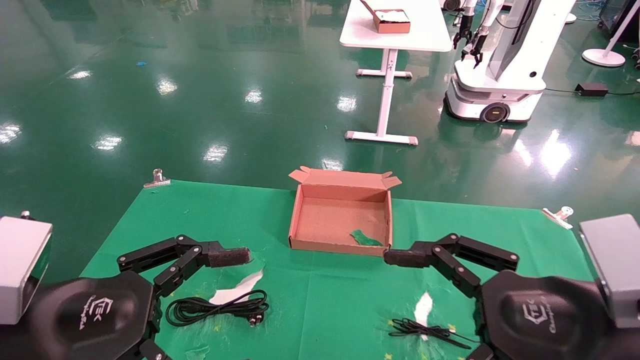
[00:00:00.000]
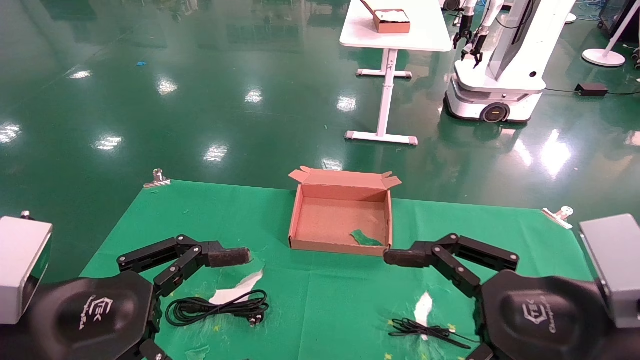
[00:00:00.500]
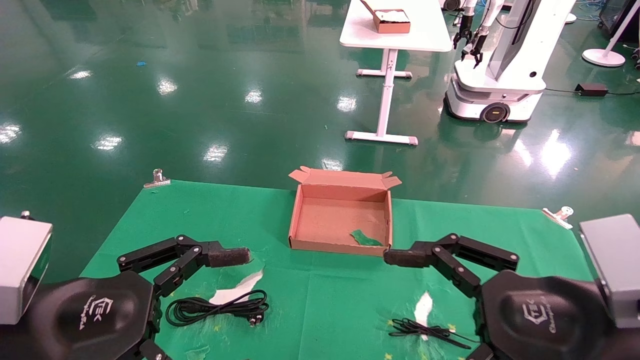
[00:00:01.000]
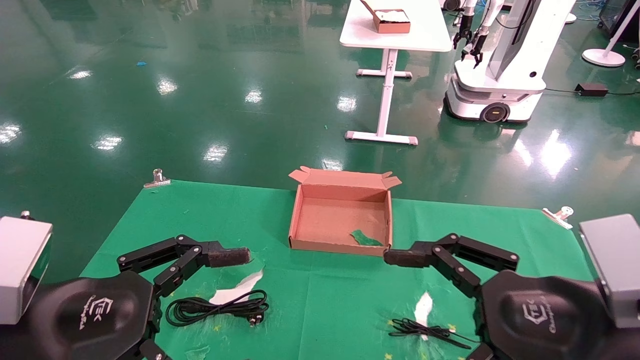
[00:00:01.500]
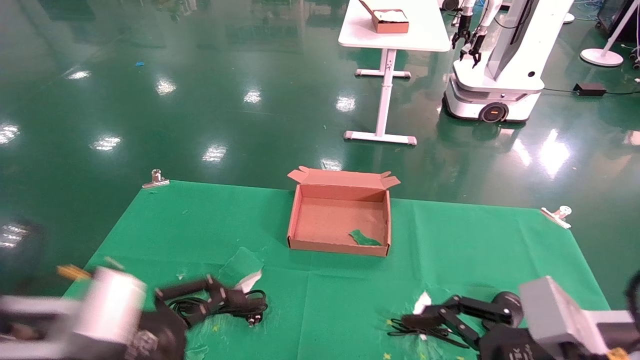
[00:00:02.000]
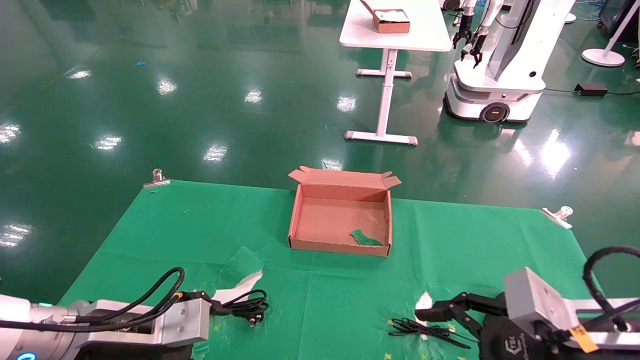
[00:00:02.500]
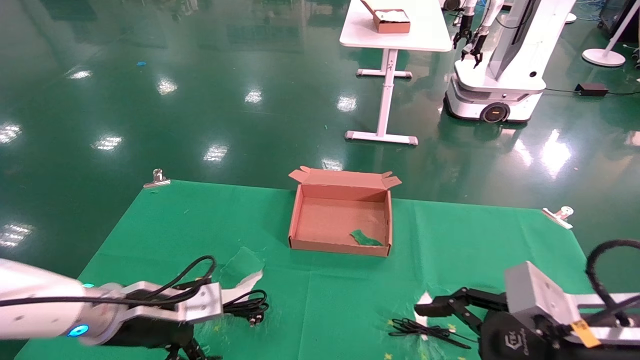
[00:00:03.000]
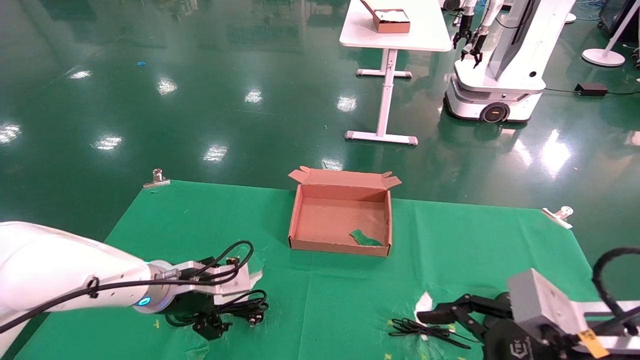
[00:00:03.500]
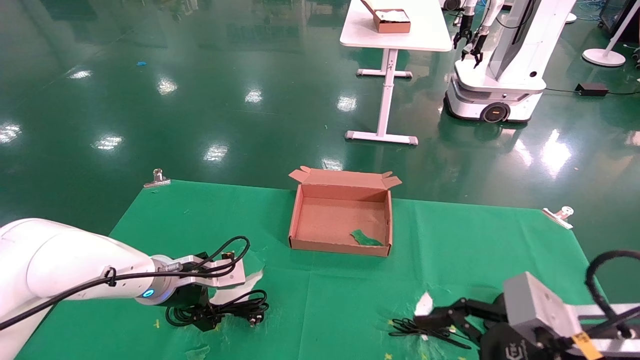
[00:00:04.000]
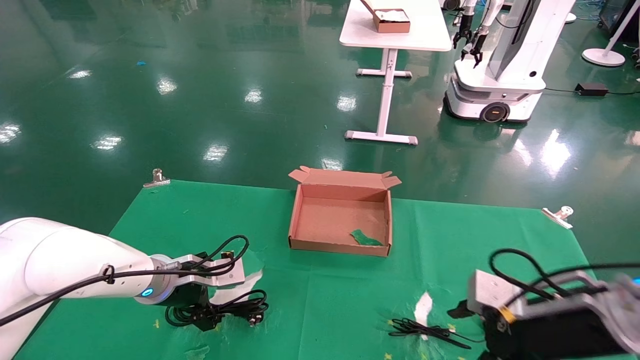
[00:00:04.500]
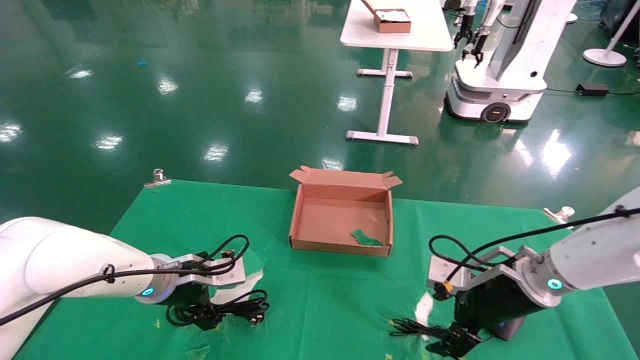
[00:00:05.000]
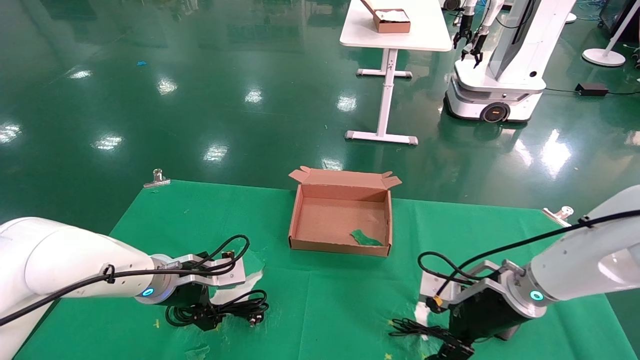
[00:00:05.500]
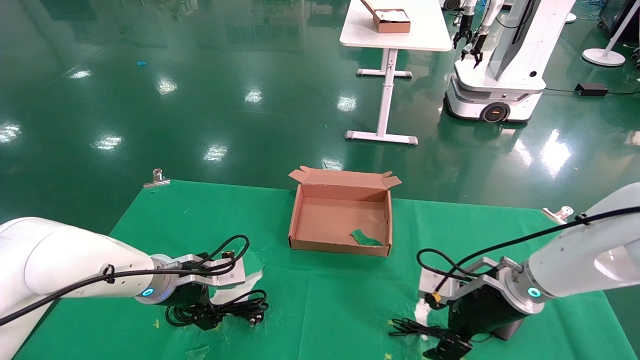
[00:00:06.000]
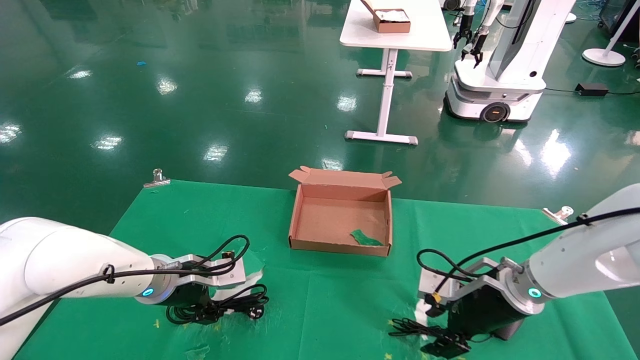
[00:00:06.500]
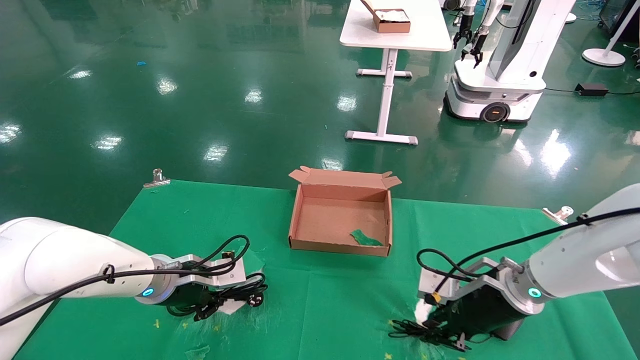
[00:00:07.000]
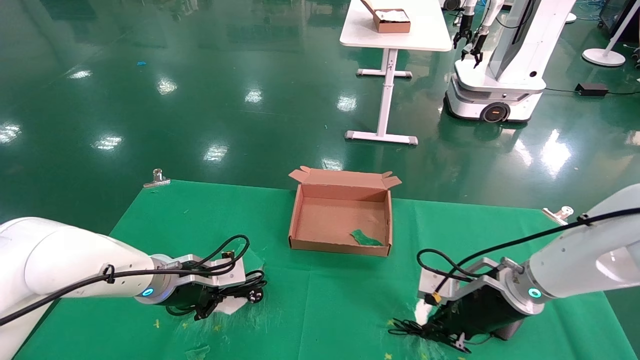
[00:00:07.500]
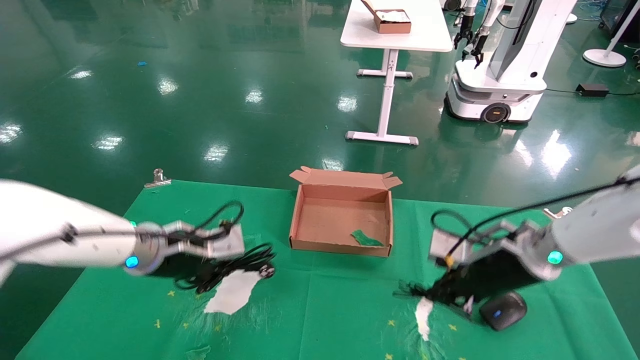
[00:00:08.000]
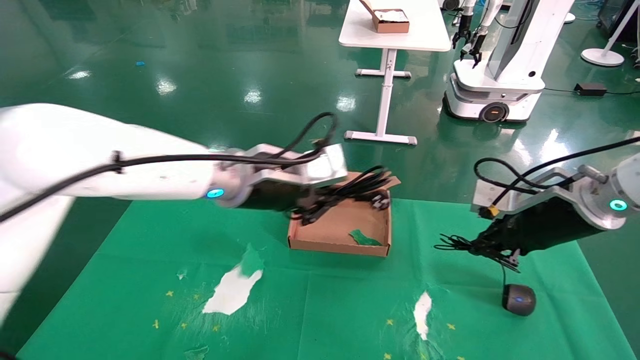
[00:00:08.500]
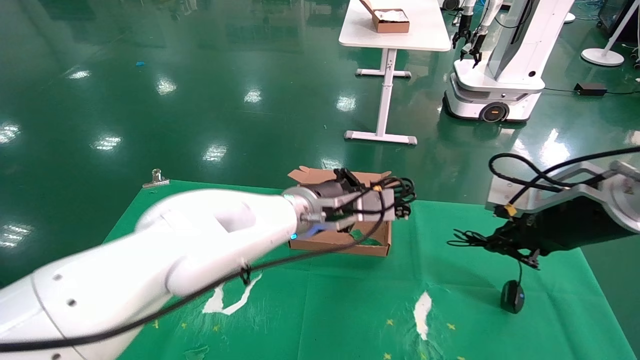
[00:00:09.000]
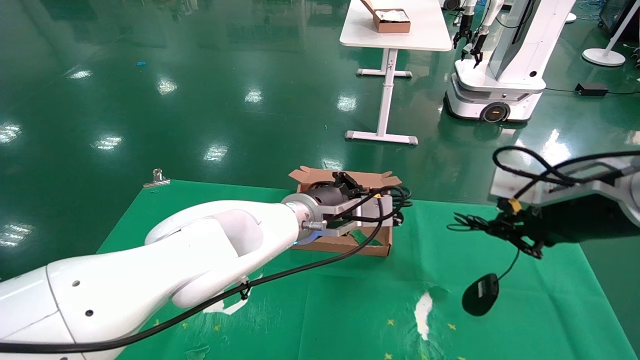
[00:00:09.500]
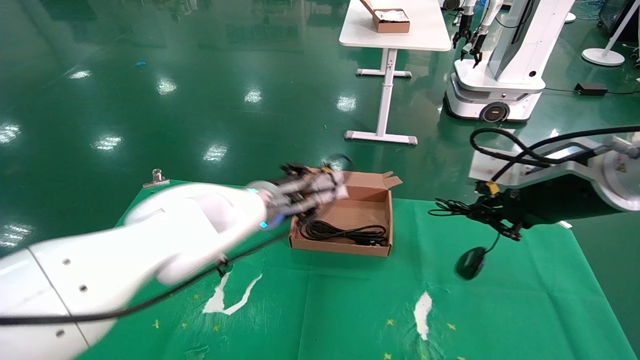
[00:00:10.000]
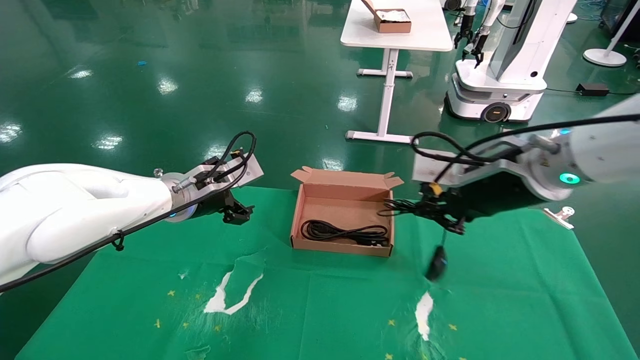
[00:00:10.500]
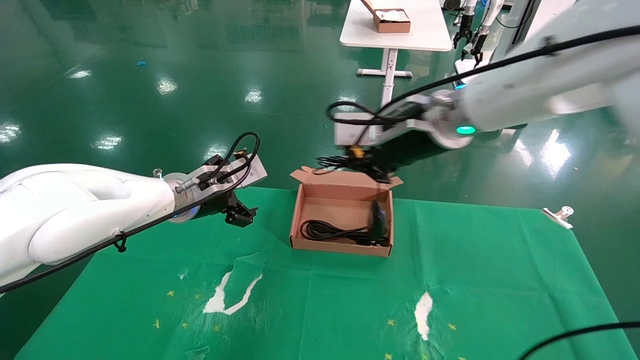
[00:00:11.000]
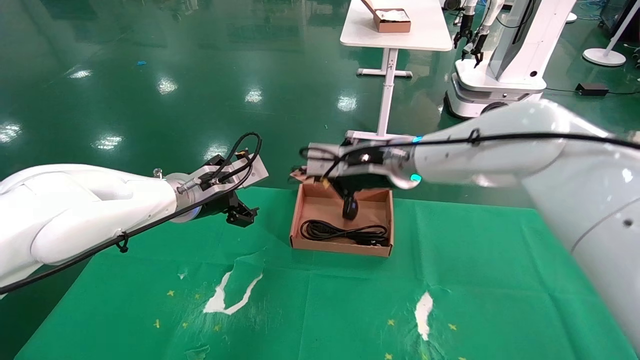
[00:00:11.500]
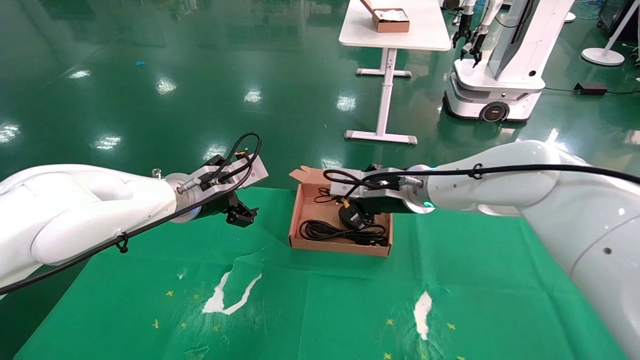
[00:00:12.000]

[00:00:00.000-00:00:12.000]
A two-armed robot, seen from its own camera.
Step, 00:00:03.000 to 00:00:07.500: Grab and lift both the mouse and power cord from the accessory packaging area at the same time.
00:00:00.000 to 00:00:02.000: The left gripper moves downward and forward, about 10 cm.
00:00:02.000 to 00:00:04.000: The left gripper heads forward, covering roughly 20 cm.
00:00:04.000 to 00:00:06.000: The right gripper is displaced forward by about 20 cm.
00:00:06.000 to 00:00:08.000: The two grippers go some 5 cm upward. The left gripper closes up. Meanwhile the right gripper closes.
00:00:08.000 to 00:00:10.000: The left gripper heads to the right and forward, covering some 15 cm; the right gripper is displaced upward and backward by roughly 15 cm.
00:00:10.000 to 00:00:12.000: The right gripper heads to the left and forward, covering some 20 cm. Meanwhile the left gripper is displaced to the left by roughly 10 cm, and opens.

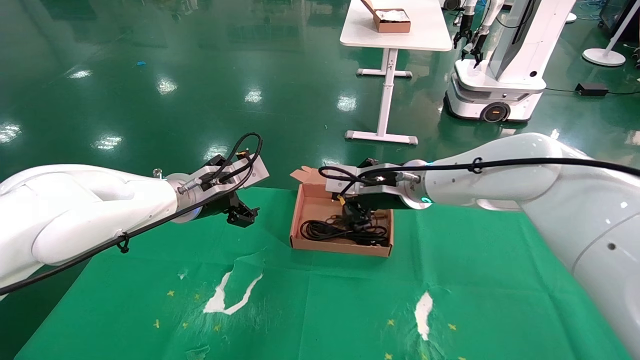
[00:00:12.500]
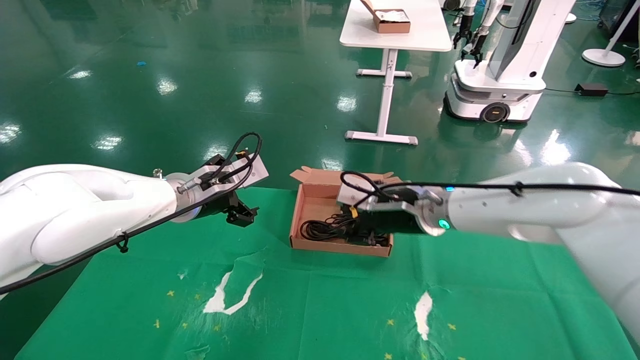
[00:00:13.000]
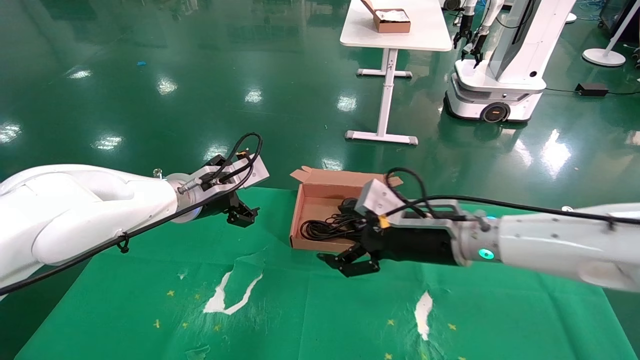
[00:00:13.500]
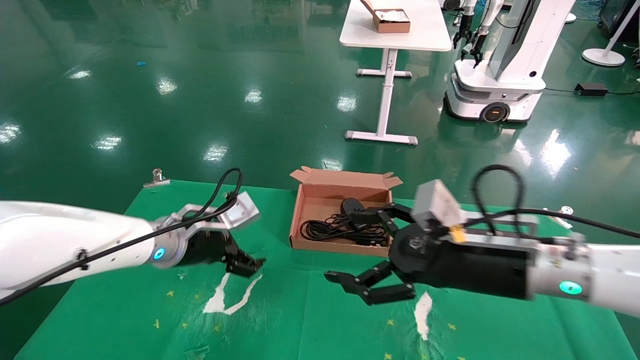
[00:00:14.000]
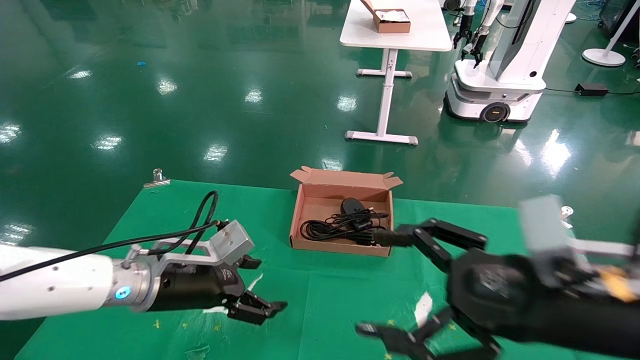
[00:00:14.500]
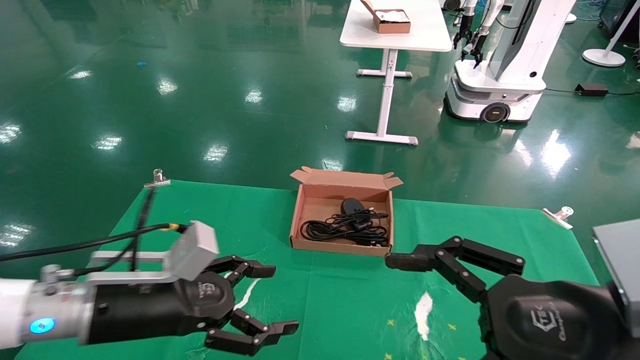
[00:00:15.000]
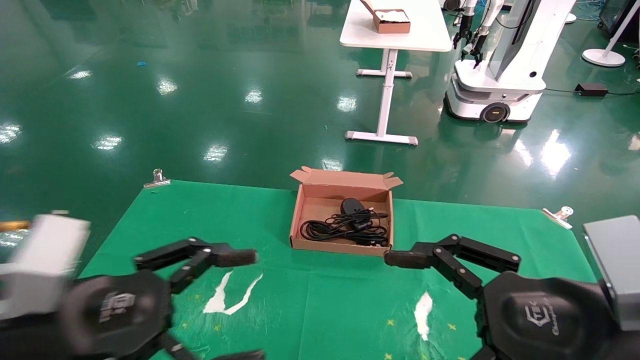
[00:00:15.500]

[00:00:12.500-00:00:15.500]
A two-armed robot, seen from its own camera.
00:00:12.500 to 00:00:14.000: The left gripper heads downward, covering about 5 cm. Meanwhile the right gripper goes about 20 cm backward and to the right, and opens its fingers.
00:00:14.000 to 00:00:15.500: The left gripper goes approximately 20 cm backward. The right gripper goes roughly 15 cm backward.
